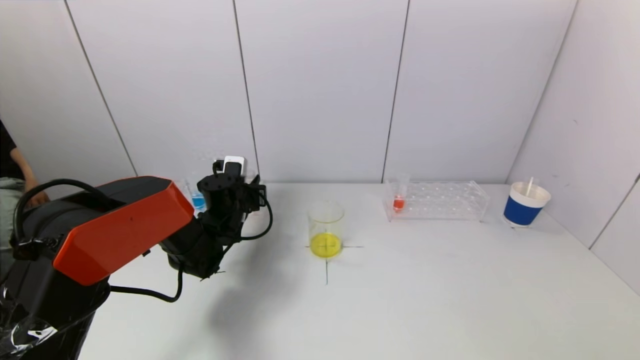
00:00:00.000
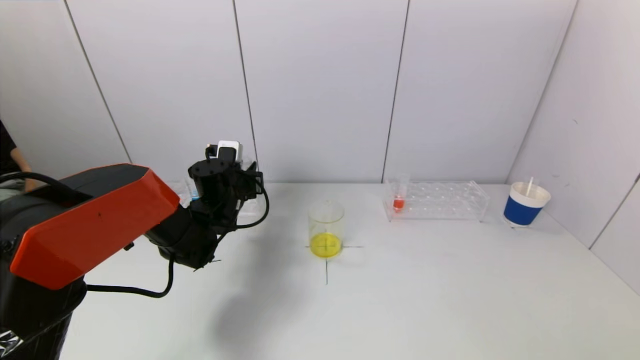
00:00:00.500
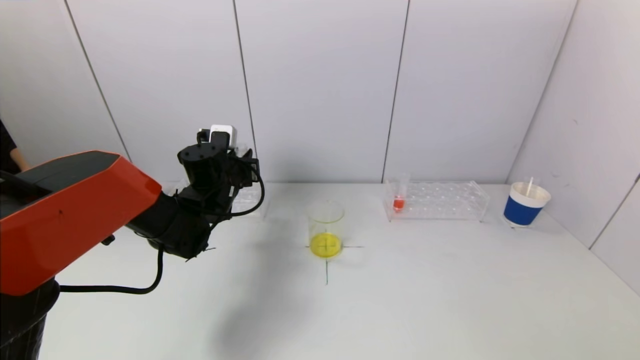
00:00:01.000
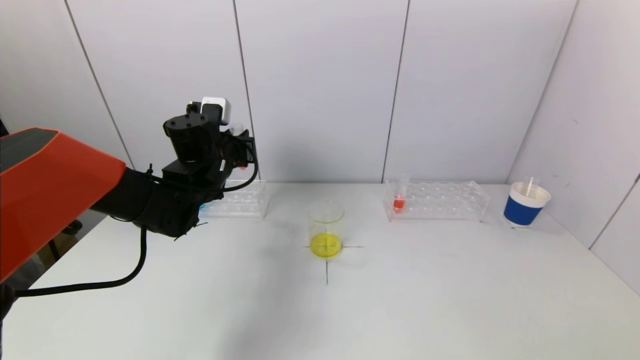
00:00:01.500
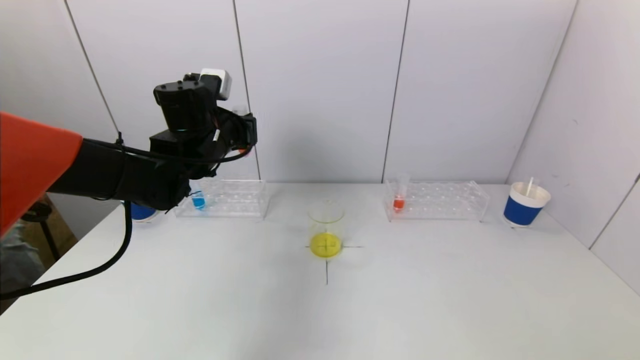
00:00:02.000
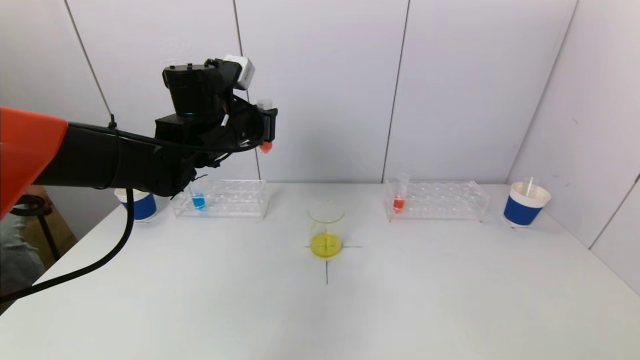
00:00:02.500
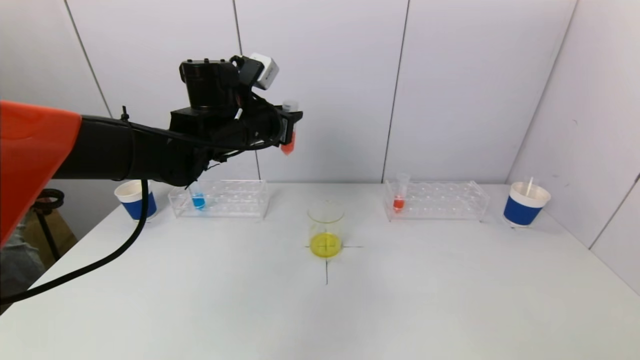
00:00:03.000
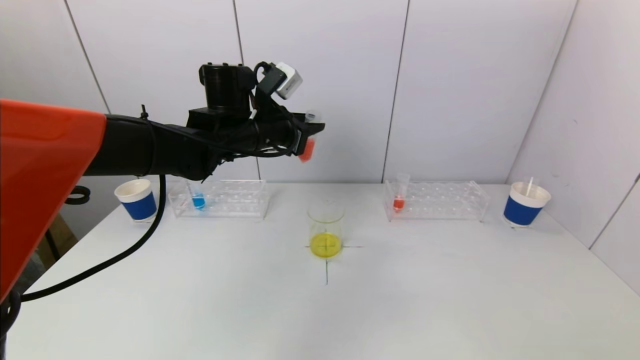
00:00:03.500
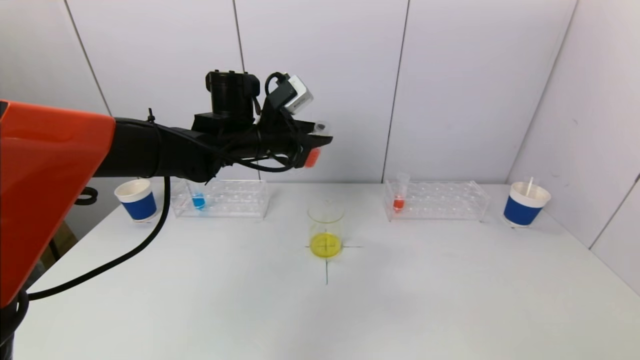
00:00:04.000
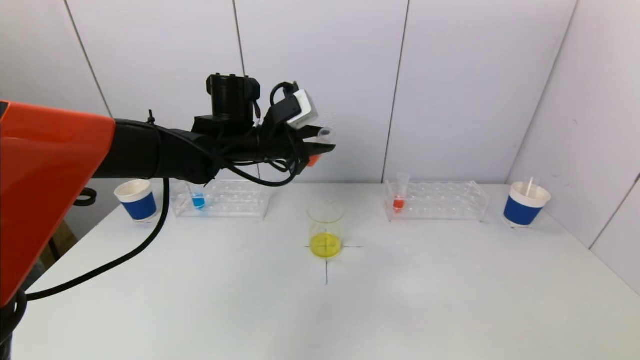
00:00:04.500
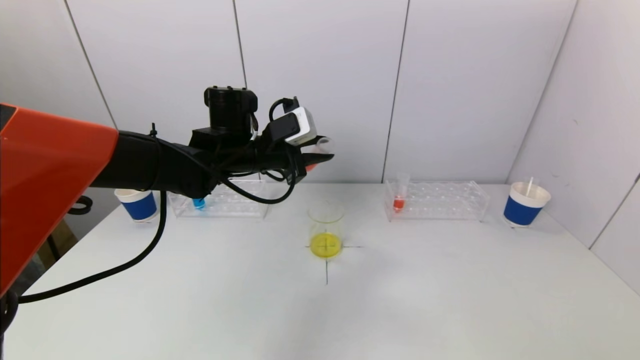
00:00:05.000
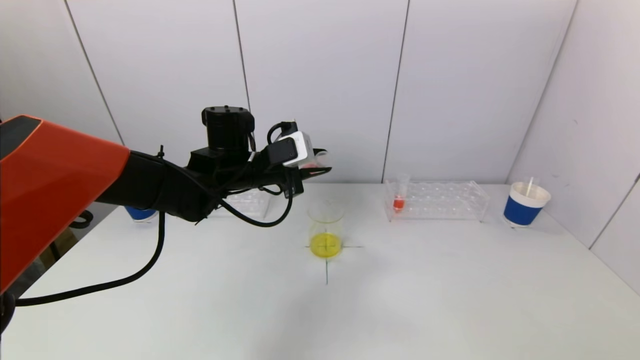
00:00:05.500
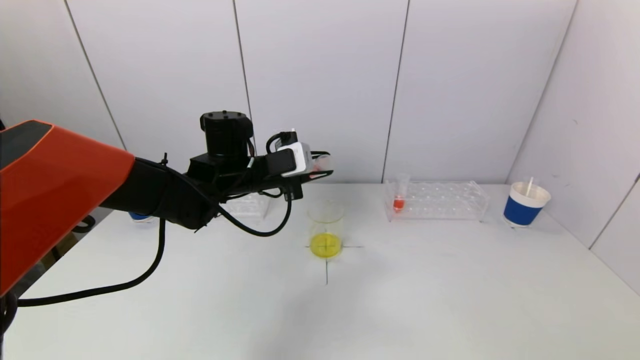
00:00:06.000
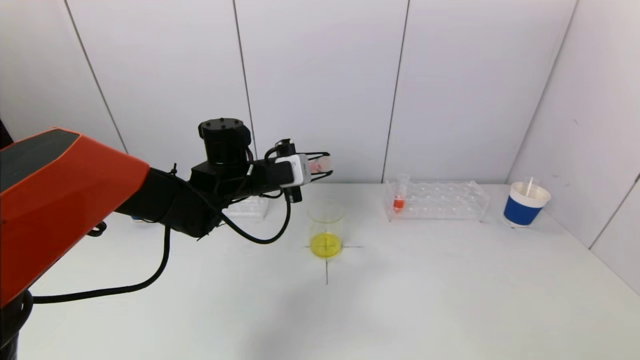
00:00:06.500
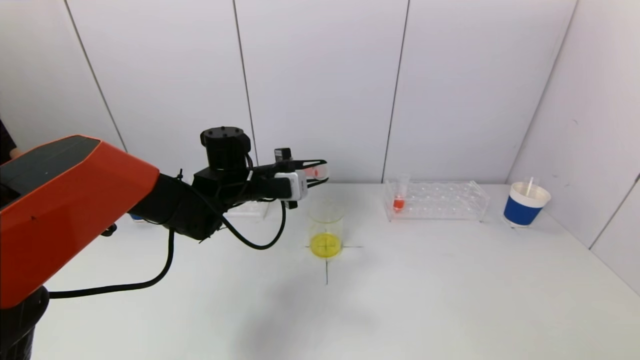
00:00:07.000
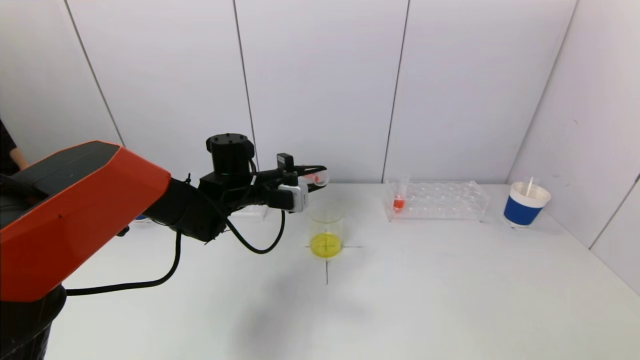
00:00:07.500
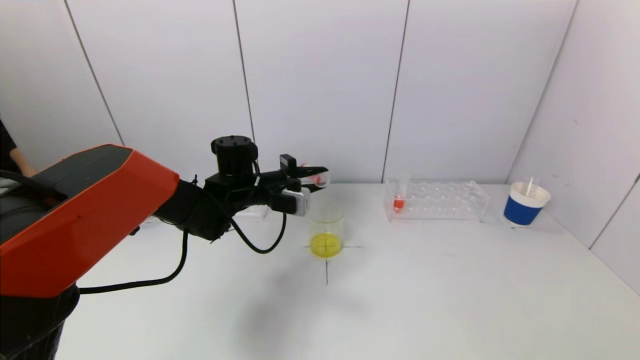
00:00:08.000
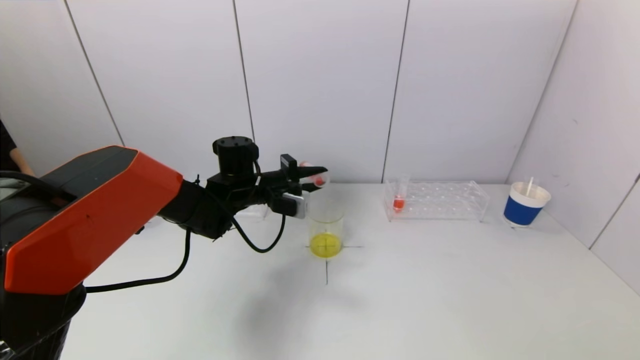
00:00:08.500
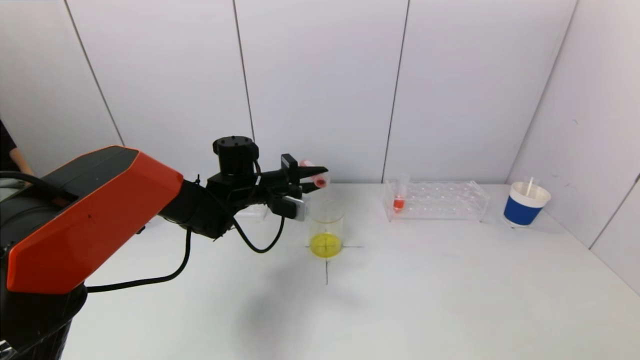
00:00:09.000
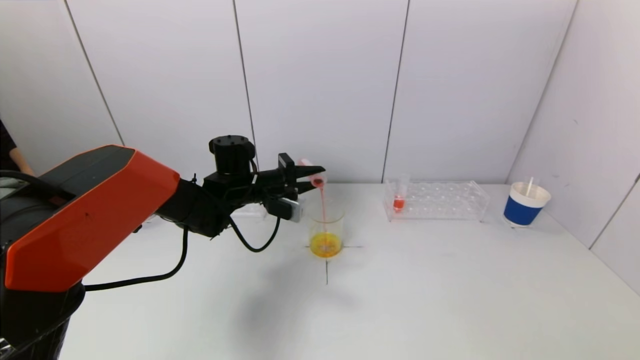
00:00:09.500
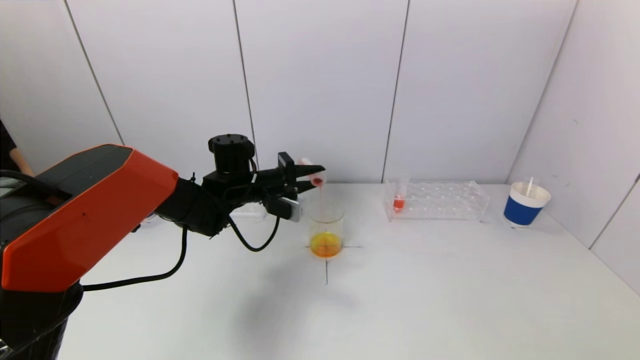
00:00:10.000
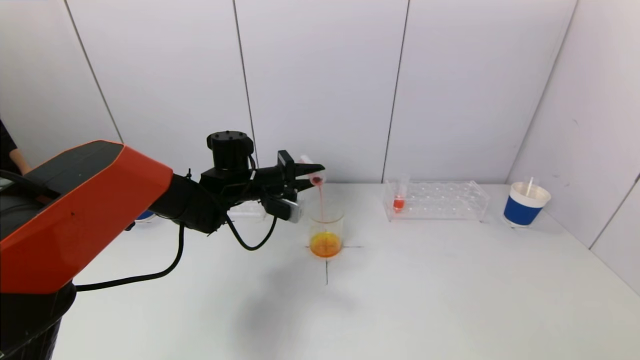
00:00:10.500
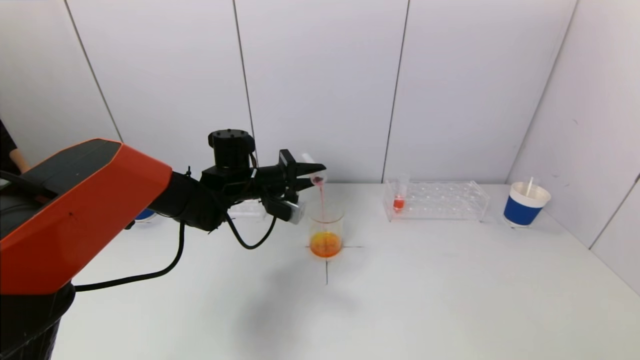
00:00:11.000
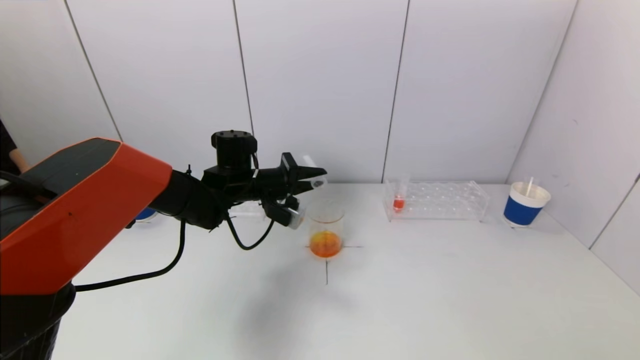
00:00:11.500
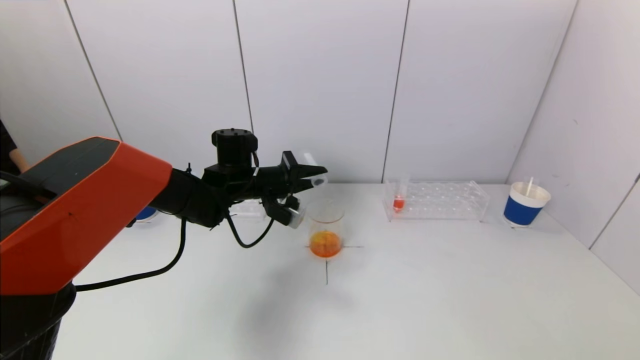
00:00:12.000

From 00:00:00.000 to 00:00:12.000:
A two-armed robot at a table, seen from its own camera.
Task of the whole recording: pick up a test tube with pigment on left test tube rack and a test tube with pigment on right test tube rack by grippers and pour them into the beaker.
Step, from 00:00:00.000 to 00:00:11.000: Pour the red reagent into the graduated cylinder with the left gripper.
From 00:00:00.000 to 00:00:02.000: The left gripper moves upward, approximately 15 cm.
From 00:00:02.000 to 00:00:04.000: The left gripper travels to the right by some 5 cm.
From 00:00:04.000 to 00:00:06.000: The left gripper heads downward, covering some 5 cm.
From 00:00:06.000 to 00:00:08.000: The left gripper is displaced downward by some 5 cm.
From 00:00:08.000 to 00:00:10.000: The grippers move only a little.
From 00:00:10.000 to 00:00:12.000: There are only small adjustments of the grippers.

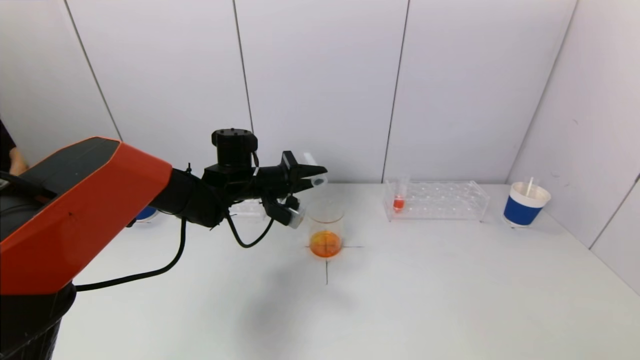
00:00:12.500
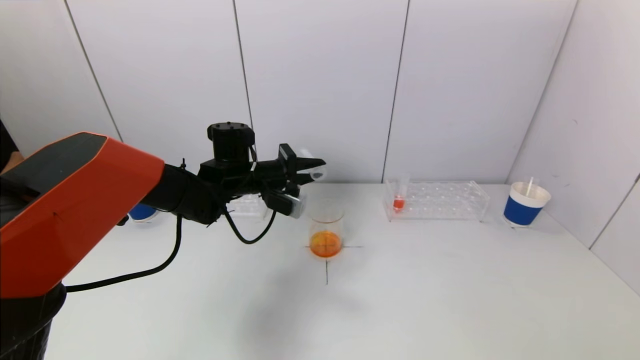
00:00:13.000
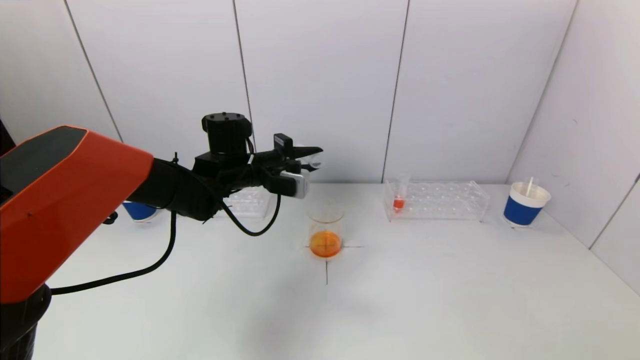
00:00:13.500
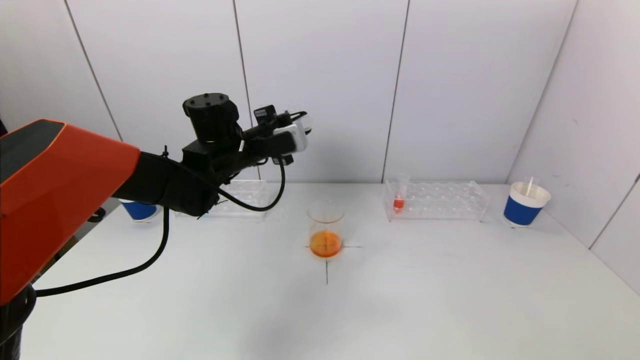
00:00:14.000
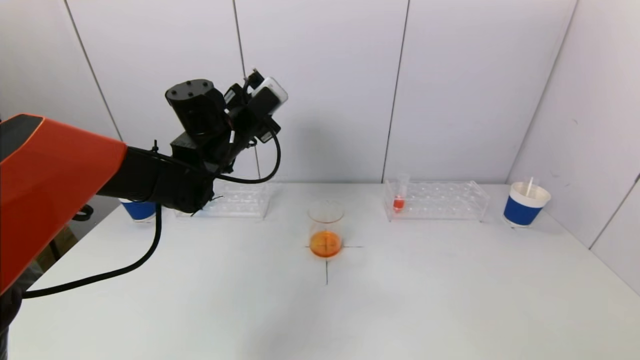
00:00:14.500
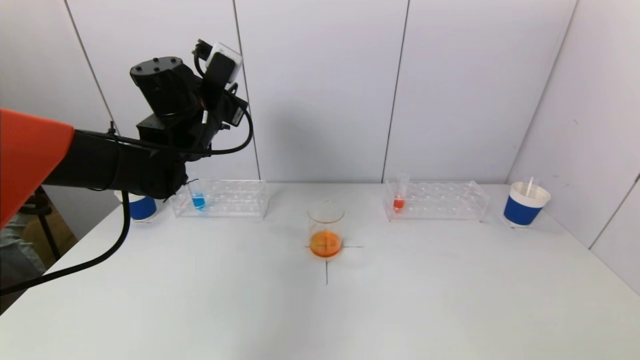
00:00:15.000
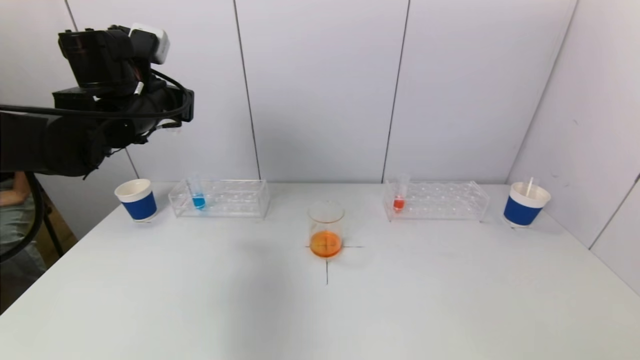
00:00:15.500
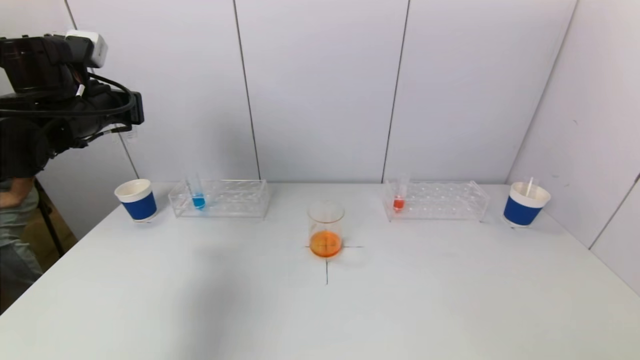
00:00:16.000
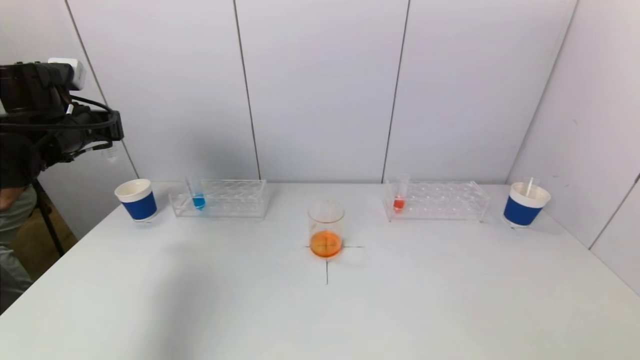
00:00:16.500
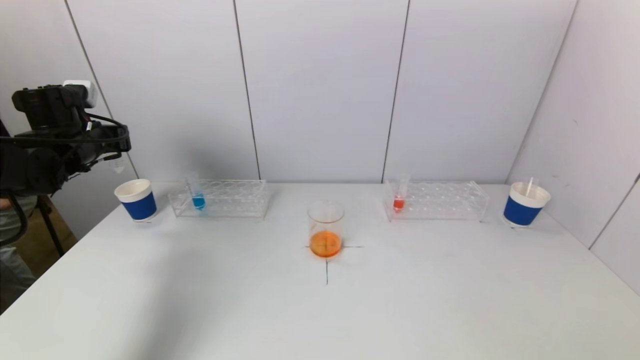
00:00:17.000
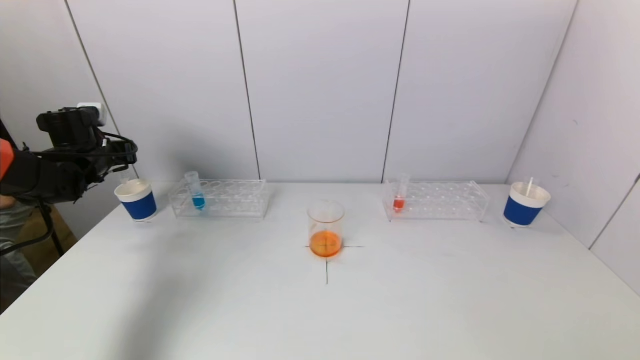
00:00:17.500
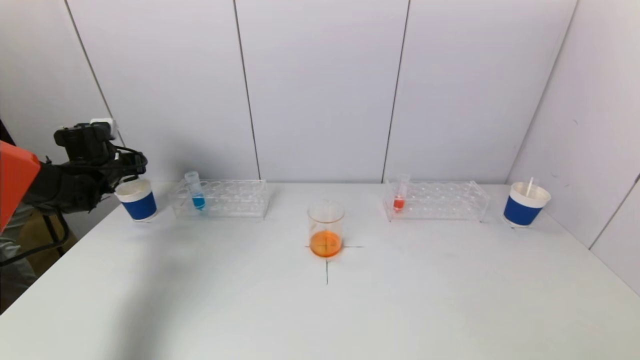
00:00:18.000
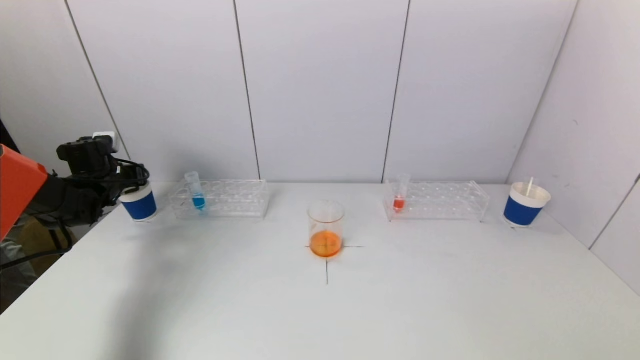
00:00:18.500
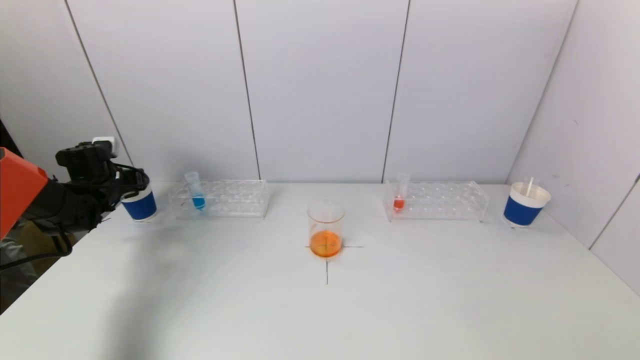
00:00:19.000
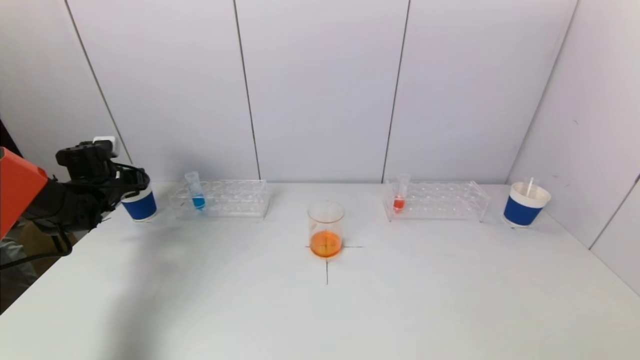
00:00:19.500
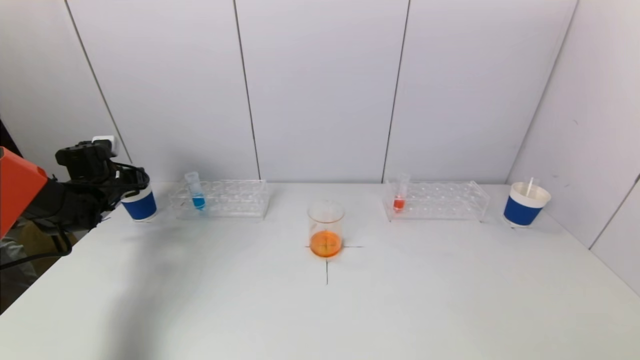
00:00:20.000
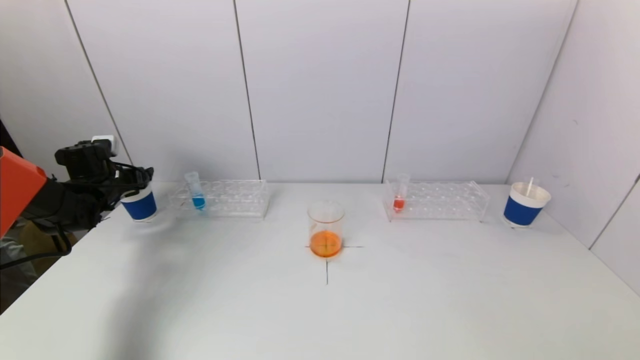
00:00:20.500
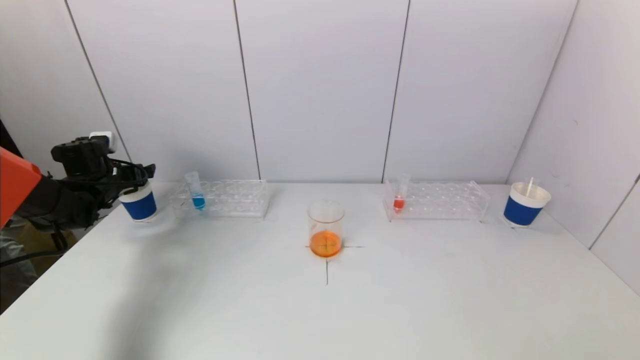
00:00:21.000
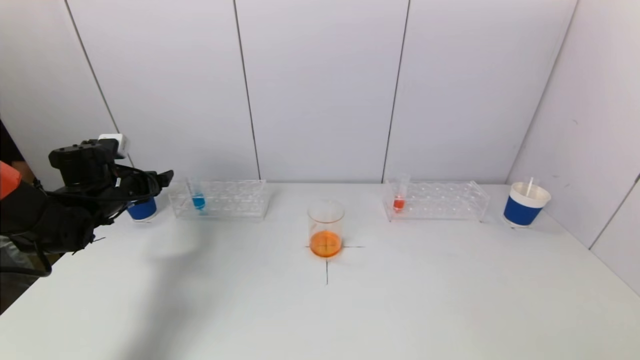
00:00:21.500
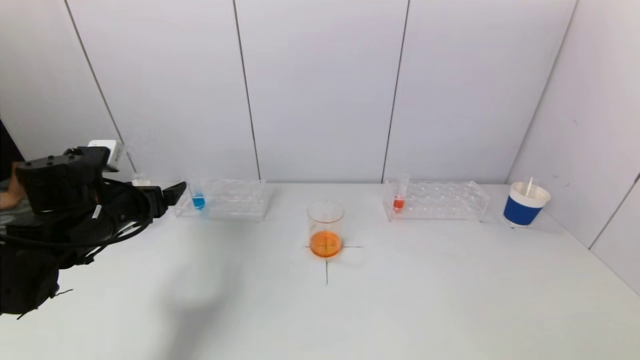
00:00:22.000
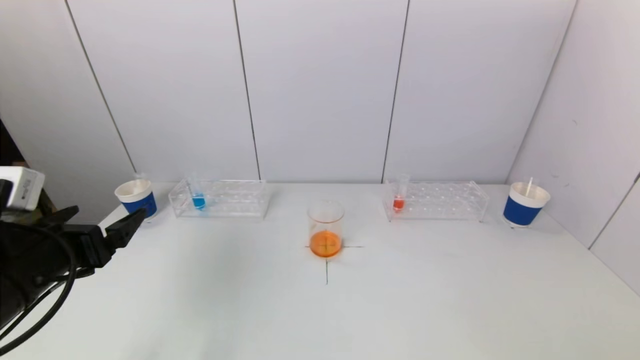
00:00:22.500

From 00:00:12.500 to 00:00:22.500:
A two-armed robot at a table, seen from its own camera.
Task of the whole recording: pick up a test tube with pigment on left test tube rack and a test tube with pigment on right test tube rack by grippers and pour them into the beaker.
Step, from 00:00:12.500 to 00:00:20.000: Place the test tube into the paper cup with the left gripper.
From 00:00:12.500 to 00:00:14.500: The left gripper moves upward, approximately 10 cm.
From 00:00:14.500 to 00:00:16.500: The left gripper goes about 20 cm to the left.
From 00:00:16.500 to 00:00:18.500: The left gripper heads downward, forward and to the left, covering roughly 20 cm.
From 00:00:18.500 to 00:00:20.500: The left gripper opens its fingers.
From 00:00:20.500 to 00:00:22.500: The left gripper goes about 30 cm backward and to the right.
